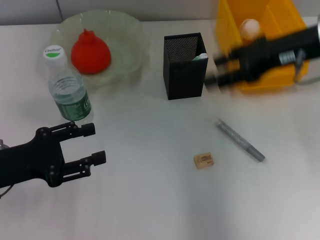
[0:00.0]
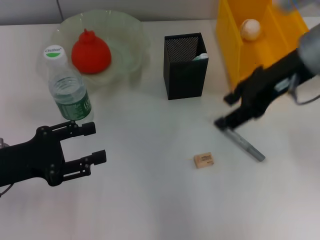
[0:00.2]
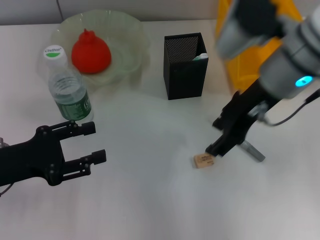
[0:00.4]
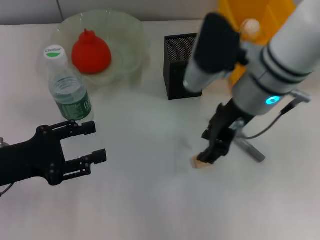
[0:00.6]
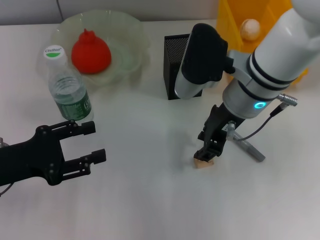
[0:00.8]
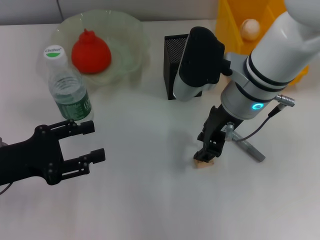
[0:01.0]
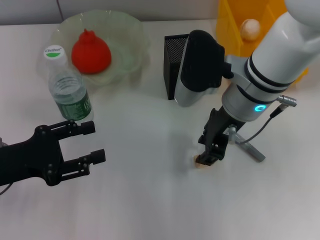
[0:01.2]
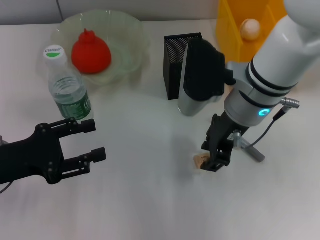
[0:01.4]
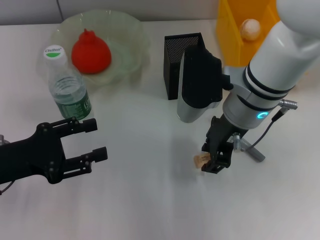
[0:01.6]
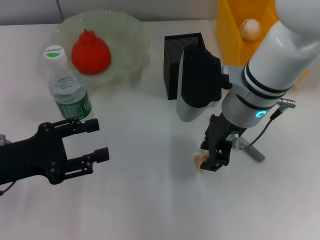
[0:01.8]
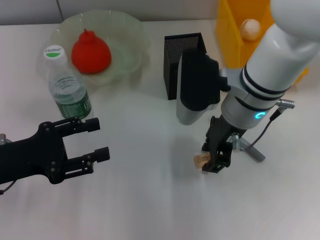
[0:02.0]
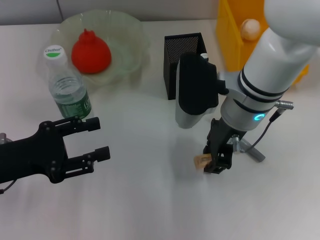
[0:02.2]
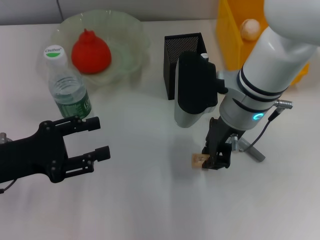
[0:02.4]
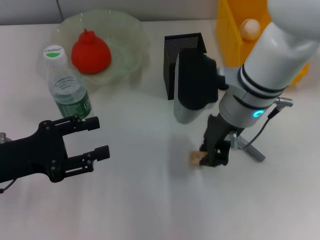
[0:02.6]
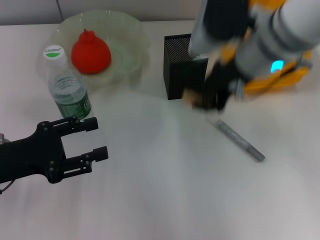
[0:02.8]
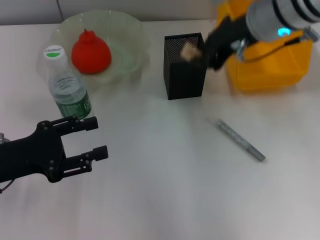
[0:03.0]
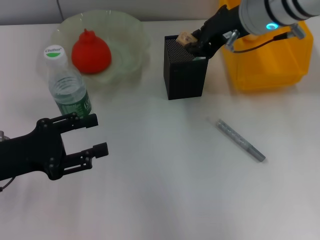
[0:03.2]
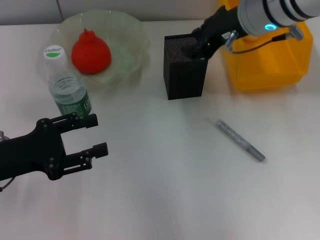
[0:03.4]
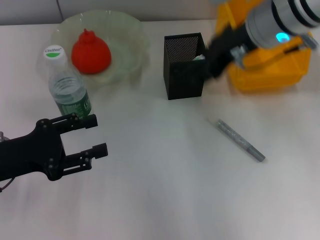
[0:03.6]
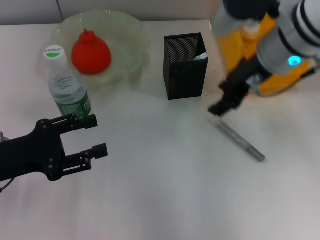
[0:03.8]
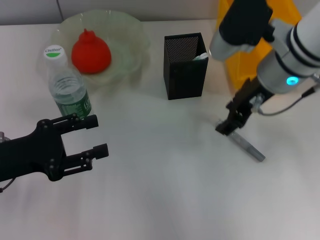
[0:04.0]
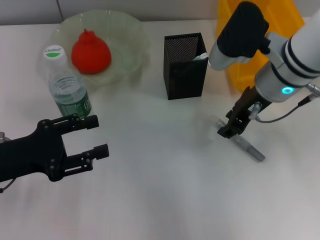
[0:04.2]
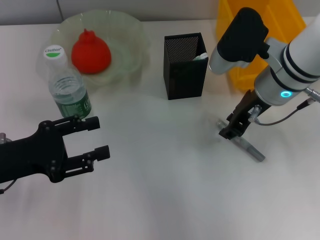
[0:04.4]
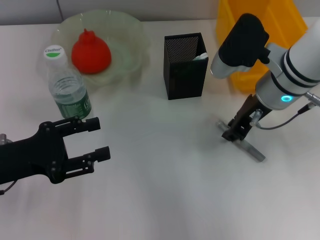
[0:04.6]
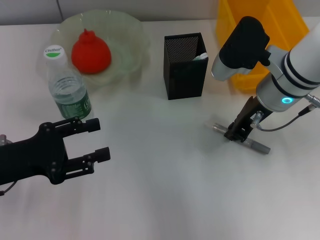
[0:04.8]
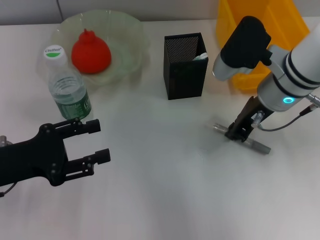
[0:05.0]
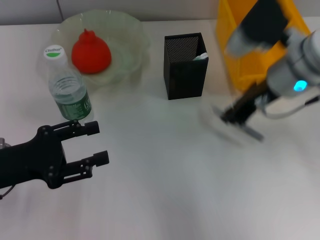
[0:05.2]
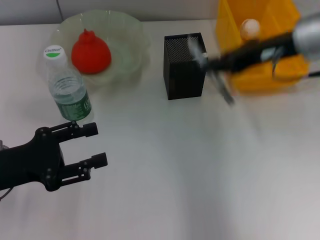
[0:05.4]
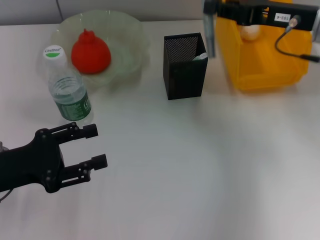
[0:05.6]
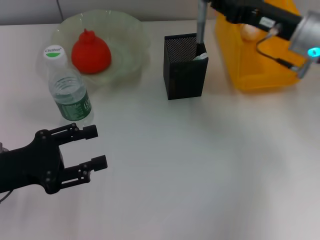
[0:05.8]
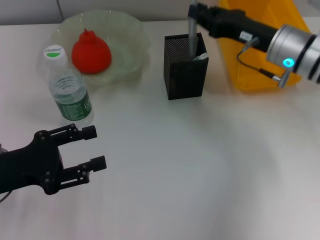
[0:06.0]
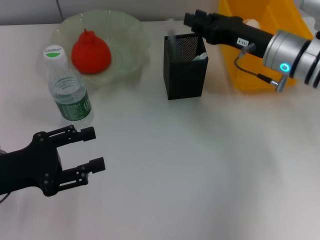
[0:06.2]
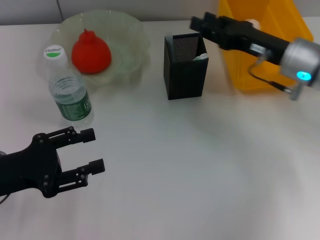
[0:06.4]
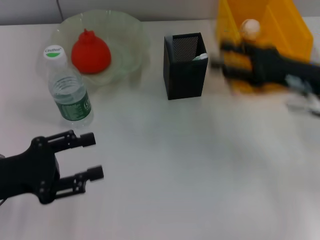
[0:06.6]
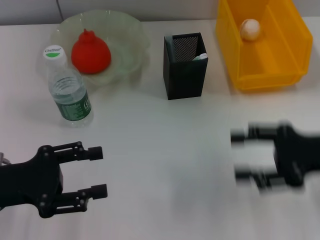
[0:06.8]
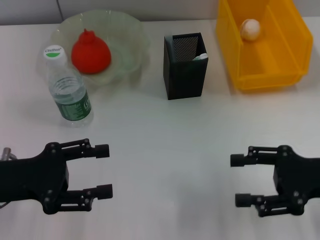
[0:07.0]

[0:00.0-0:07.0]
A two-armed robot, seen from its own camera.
Step, 0.0 to 2.4 s: Grab the eraser with the right hand.
Step, 2.6 to 3.4 s: Put the eraser into the pen holder with the right hand.
Step, 3.6 to 4.8 s: Grab the gray glue with the right hand.
Step, 5.0 to 6.2 s: Place the gray glue into the pen holder with the right hand.
0.0 to 1.4 s: The right gripper goes approximately 15 cm to the left and downward.
1.4 to 2.8 s: The right gripper heads upward, covering some 5 cm.
2.8 to 4.2 s: The right gripper is displaced downward by approximately 5 cm, and opens up.
4.2 to 5.6 s: The right gripper heads to the right, covering about 10 cm, and closes.
5.6 to 7.0 s: The right gripper is displaced backward and downward by roughly 15 cm, and opens.

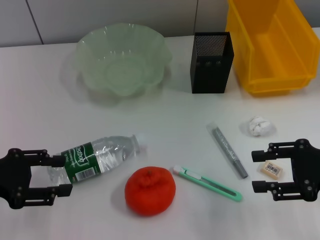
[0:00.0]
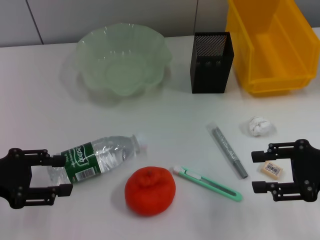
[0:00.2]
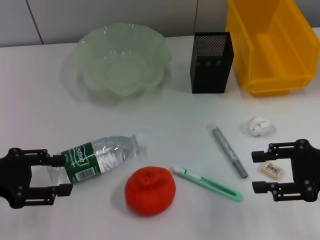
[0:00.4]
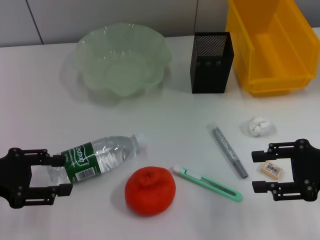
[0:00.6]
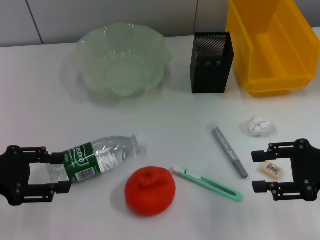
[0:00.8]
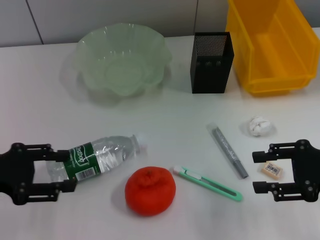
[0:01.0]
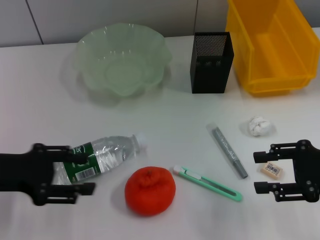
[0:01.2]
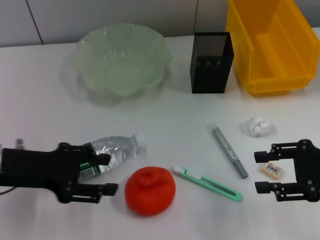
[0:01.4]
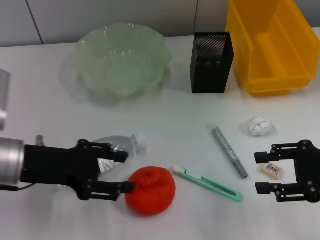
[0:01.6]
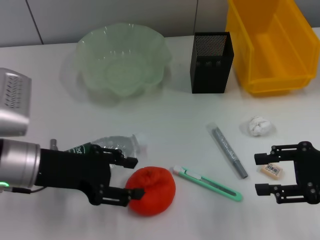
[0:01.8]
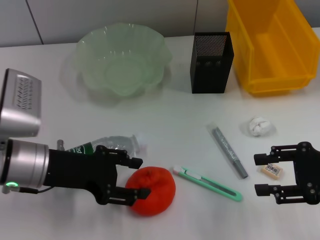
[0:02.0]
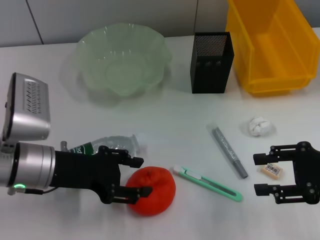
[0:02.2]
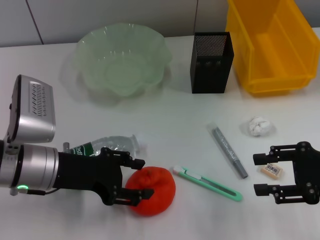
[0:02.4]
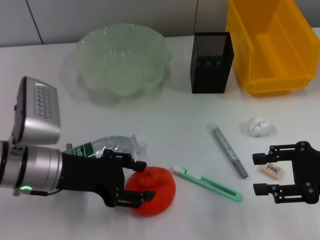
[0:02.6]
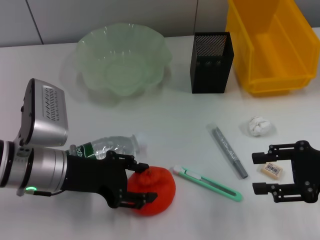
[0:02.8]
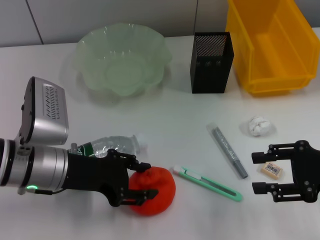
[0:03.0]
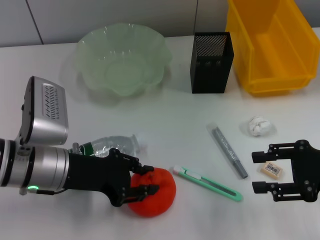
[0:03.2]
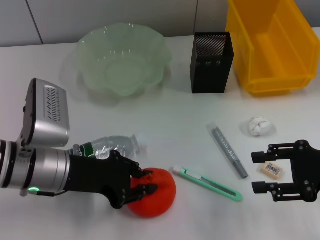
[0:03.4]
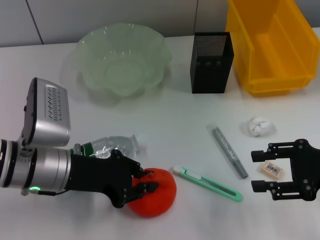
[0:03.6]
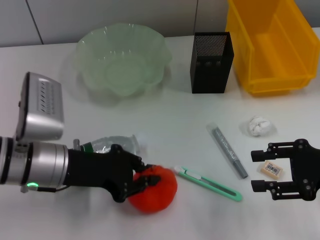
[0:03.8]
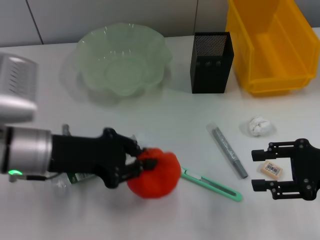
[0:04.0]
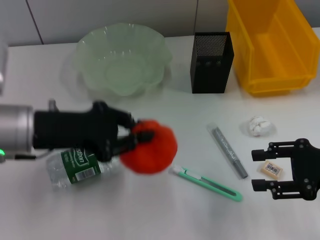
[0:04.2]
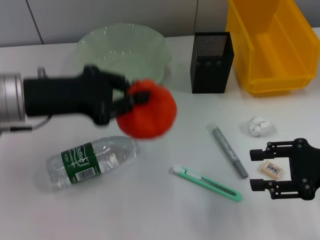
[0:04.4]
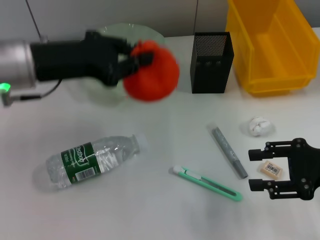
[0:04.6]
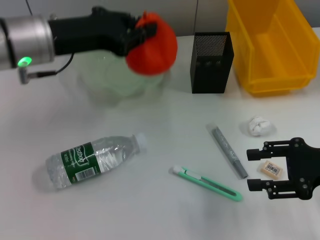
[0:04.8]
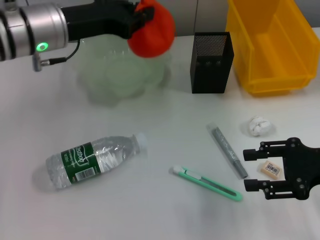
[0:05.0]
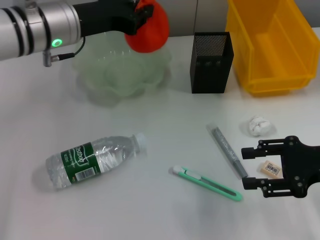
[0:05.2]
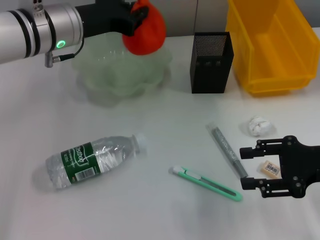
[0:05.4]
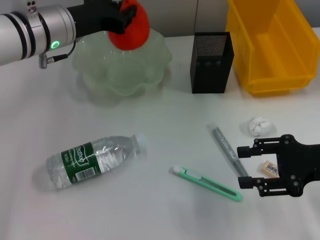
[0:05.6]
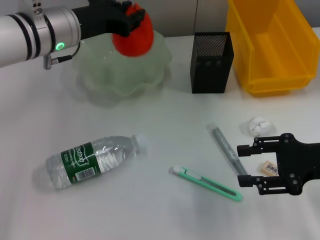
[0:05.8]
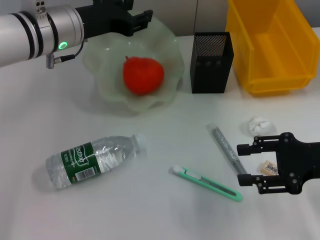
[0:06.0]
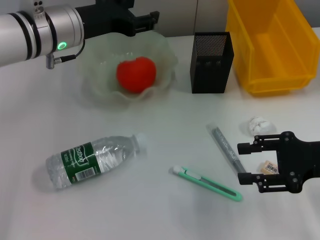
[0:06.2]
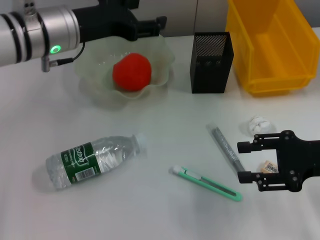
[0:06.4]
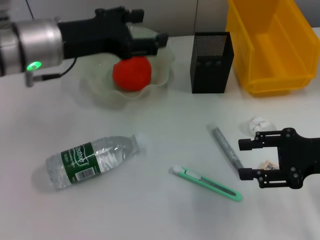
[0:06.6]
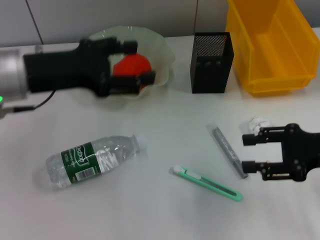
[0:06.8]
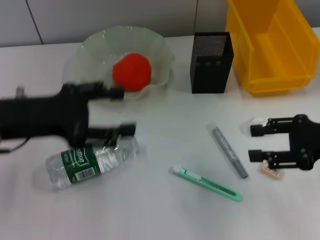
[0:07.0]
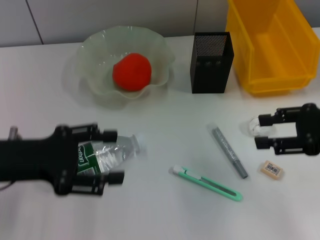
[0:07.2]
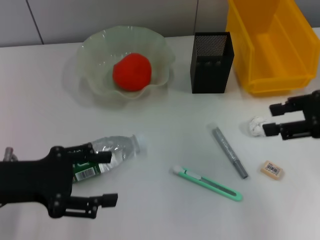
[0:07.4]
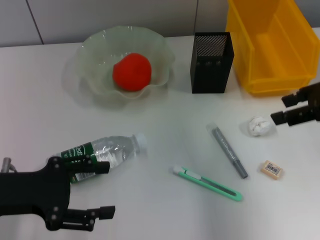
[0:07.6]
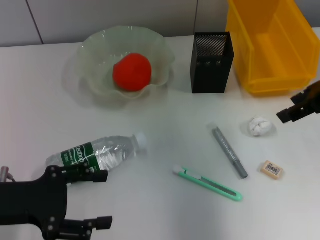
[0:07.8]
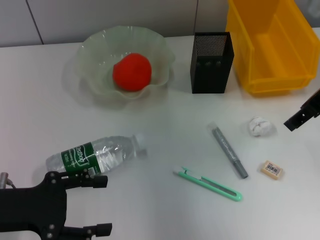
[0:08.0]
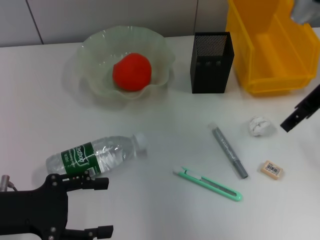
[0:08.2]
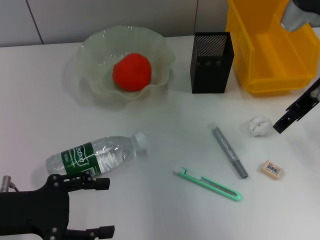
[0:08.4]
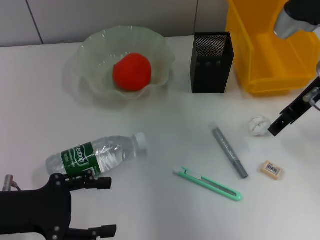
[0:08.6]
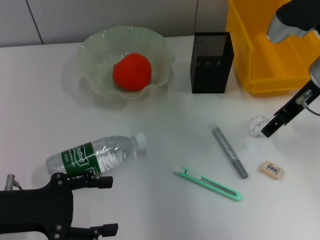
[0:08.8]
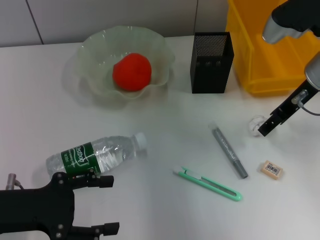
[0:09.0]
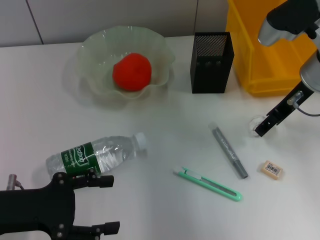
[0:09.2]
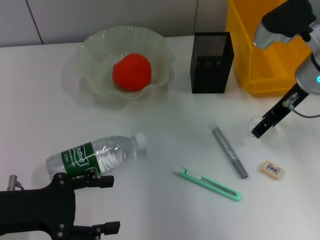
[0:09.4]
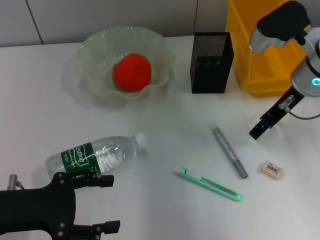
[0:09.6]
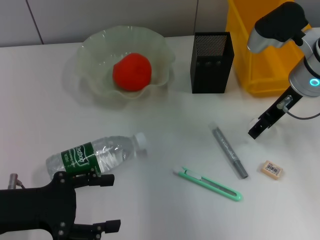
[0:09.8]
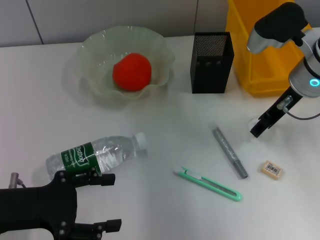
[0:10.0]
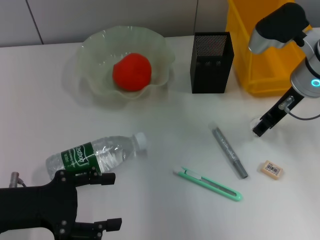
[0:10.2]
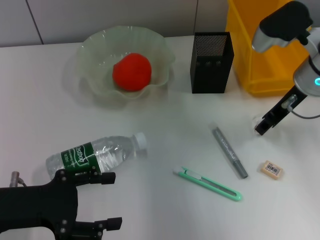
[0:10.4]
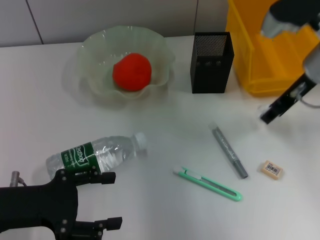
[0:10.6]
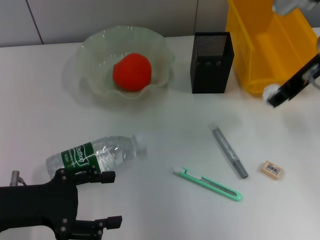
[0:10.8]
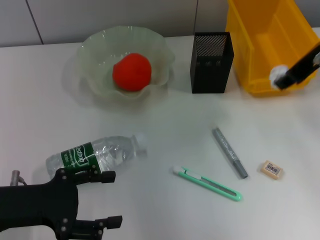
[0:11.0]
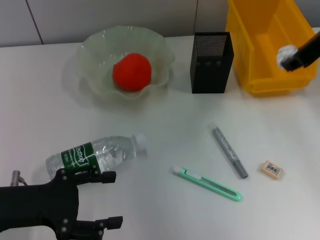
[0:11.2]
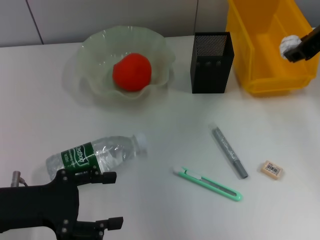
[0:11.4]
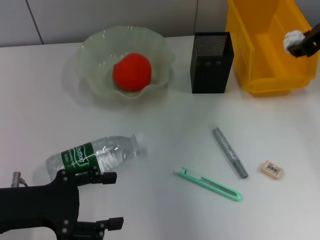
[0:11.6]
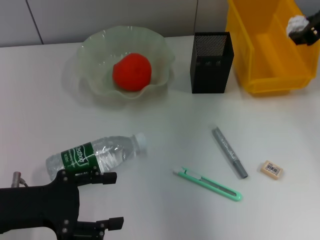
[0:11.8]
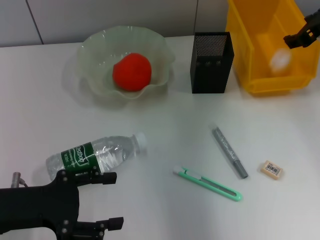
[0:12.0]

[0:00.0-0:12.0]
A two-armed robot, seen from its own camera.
Step, 0.0 to 3.4 s: Grab the orange with the left hand.
Step, 3.6 to 6.2 s: Place the orange into the fruit bowl with the left hand.
Step, 6.4 to 10.0 s: Grab the paper ball with the right hand.
0.0 to 1.6 s: The left gripper is displaced to the right by about 10 cm.
1.6 to 3.0 s: The left gripper shifts by roughly 5 cm.
3.0 to 4.4 s: The left gripper heads upward, covering approximately 10 cm, and closes.
4.4 to 6.0 s: The left gripper moves forward and to the right, approximately 10 cm, and opens its fingers.
6.0 to 7.6 s: The right gripper travels upward and forward by some 15 cm; the left gripper goes some 20 cm backward and to the left, and opens up.
7.6 to 9.0 s: The right gripper travels forward and to the left by roughly 10 cm.
9.0 to 10.4 s: The right gripper closes its fingers.
10.4 to 12.0 s: The right gripper is displaced upward by some 5 cm.

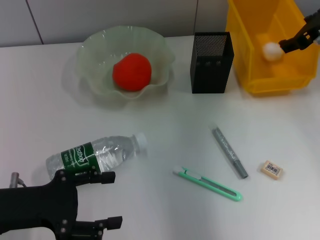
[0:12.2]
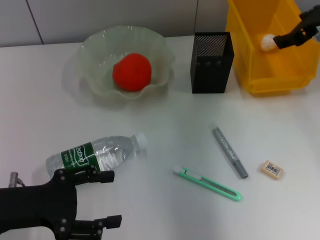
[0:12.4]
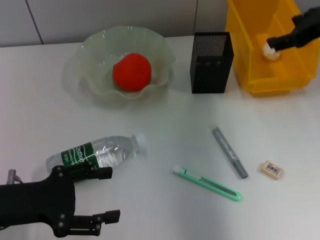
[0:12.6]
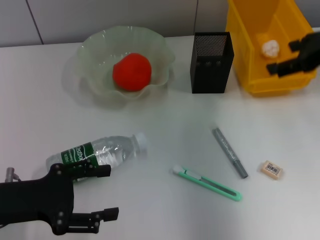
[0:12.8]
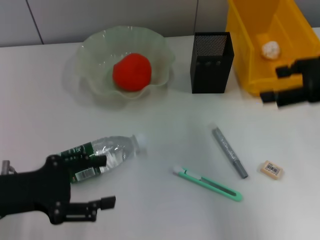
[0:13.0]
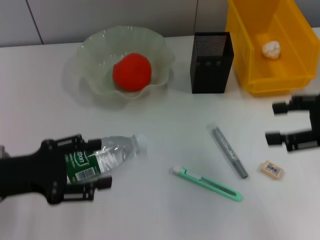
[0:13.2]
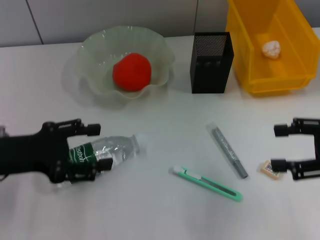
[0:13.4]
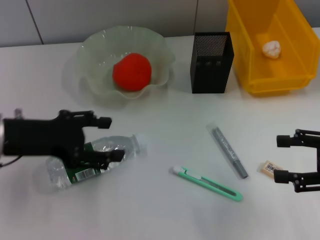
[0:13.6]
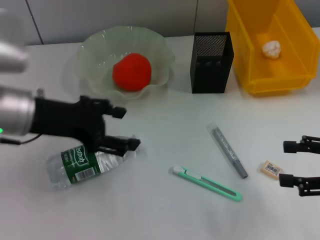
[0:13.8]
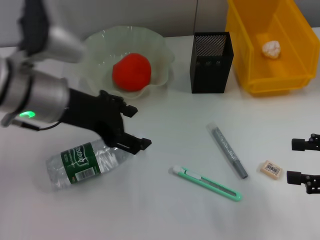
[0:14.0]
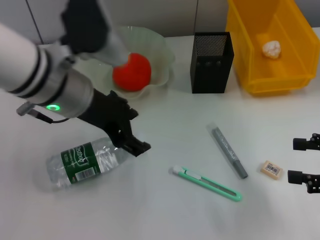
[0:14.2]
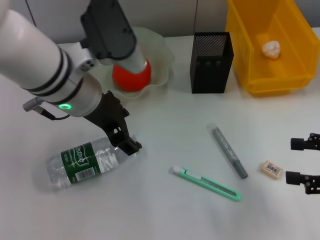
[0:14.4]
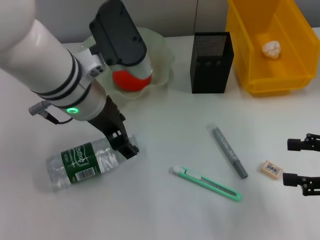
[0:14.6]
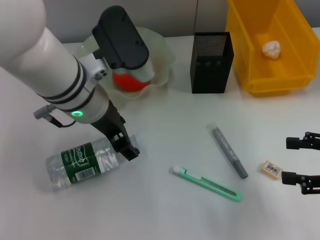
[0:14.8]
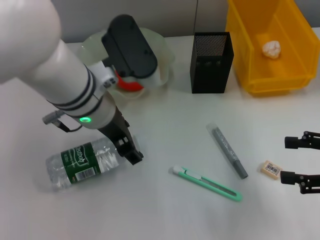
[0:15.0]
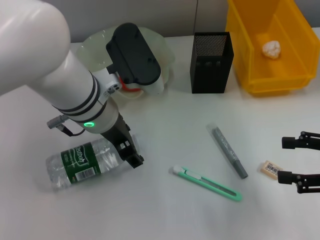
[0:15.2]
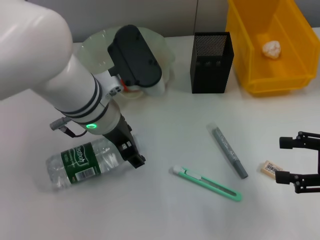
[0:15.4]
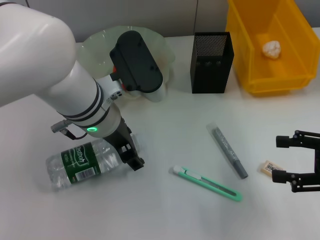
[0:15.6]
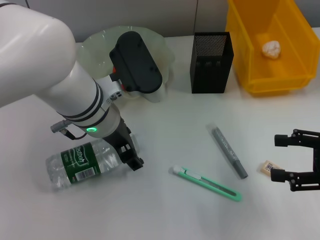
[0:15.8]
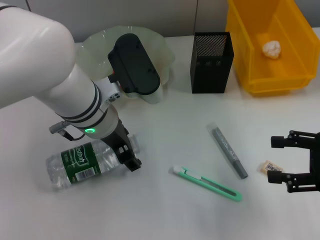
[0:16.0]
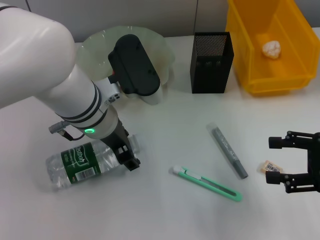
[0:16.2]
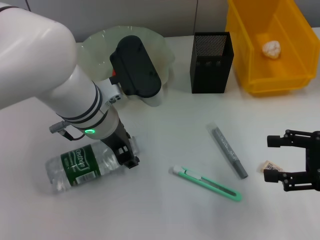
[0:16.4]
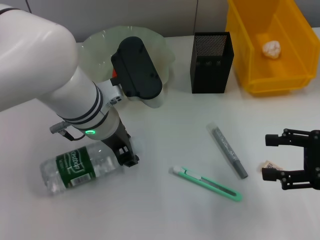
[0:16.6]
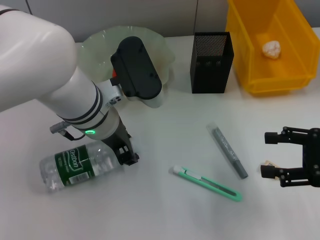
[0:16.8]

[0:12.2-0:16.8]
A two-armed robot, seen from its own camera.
Step, 12.8 to 16.6 s: Grab the water bottle with the left hand.
12.2 to 13.8 s: The left gripper is displaced forward, upward and to the right by roughly 15 cm, while the right gripper moves backward and downward, approximately 20 cm.
13.8 to 15.2 s: The left gripper moves to the right, roughly 10 cm.
15.2 to 16.8 s: The left gripper closes up.
